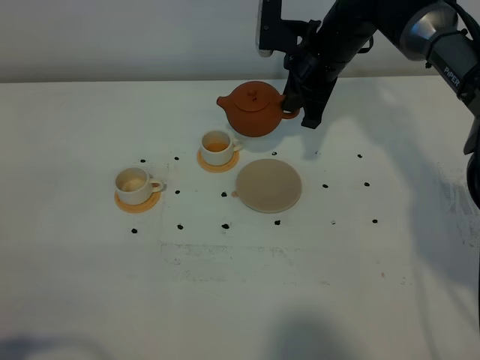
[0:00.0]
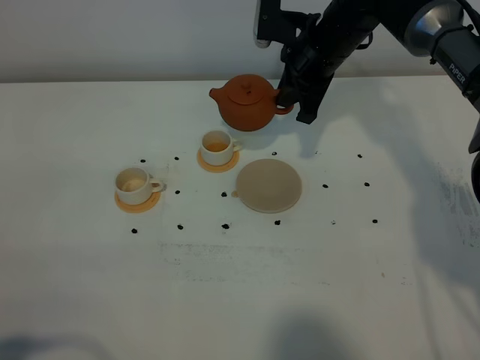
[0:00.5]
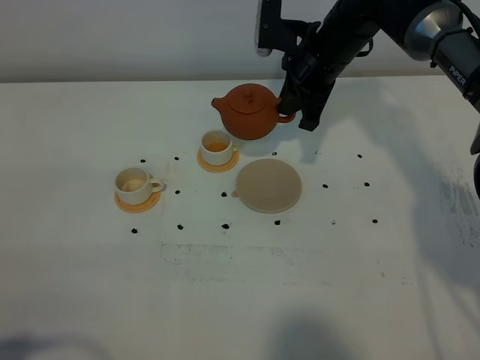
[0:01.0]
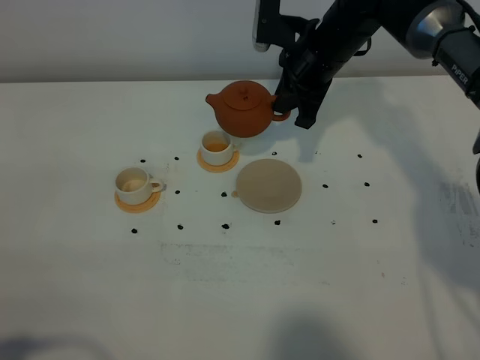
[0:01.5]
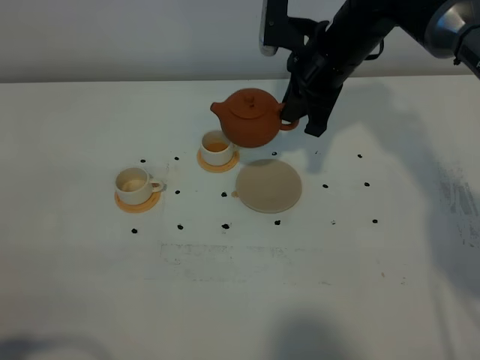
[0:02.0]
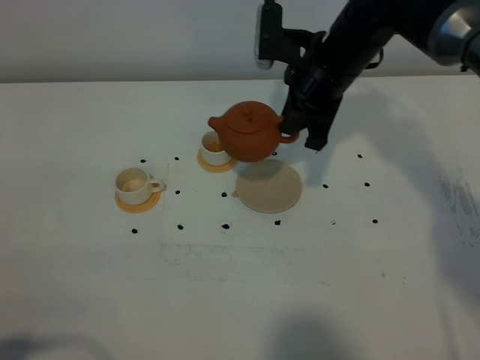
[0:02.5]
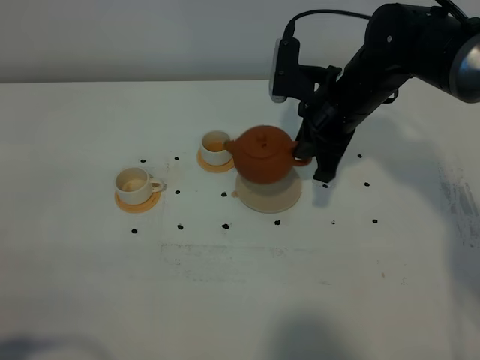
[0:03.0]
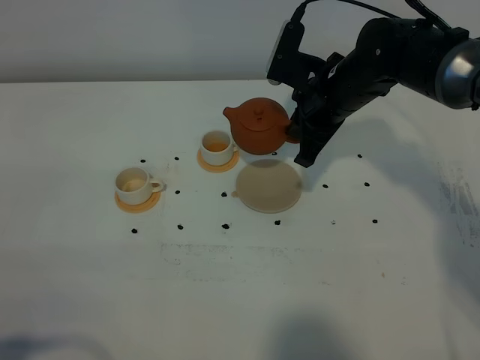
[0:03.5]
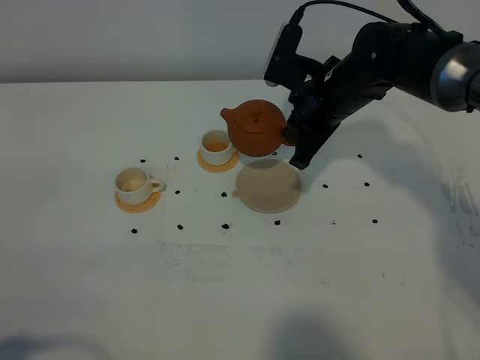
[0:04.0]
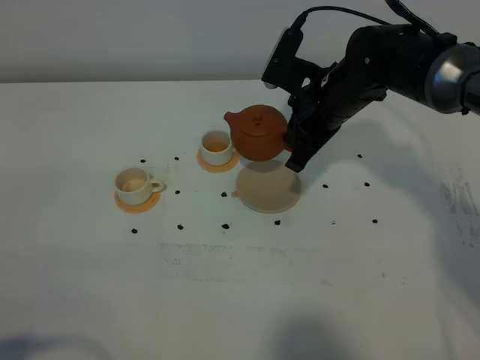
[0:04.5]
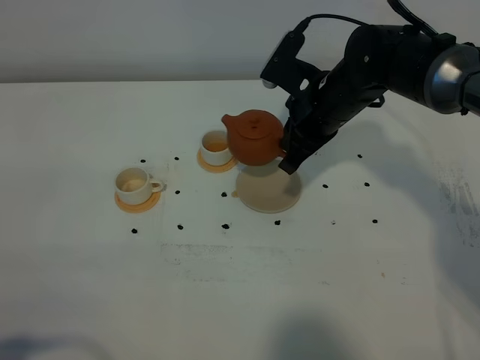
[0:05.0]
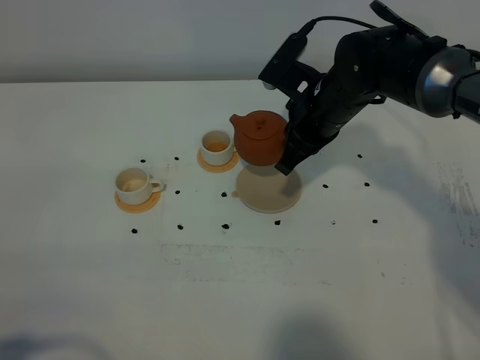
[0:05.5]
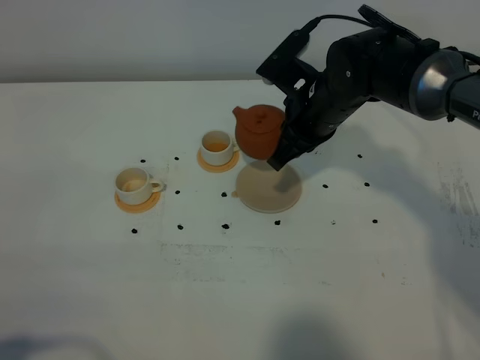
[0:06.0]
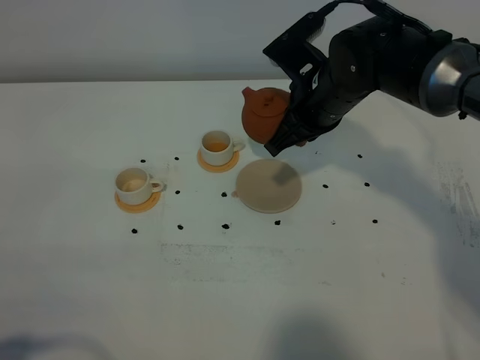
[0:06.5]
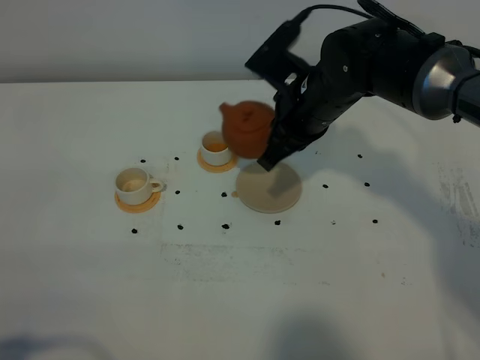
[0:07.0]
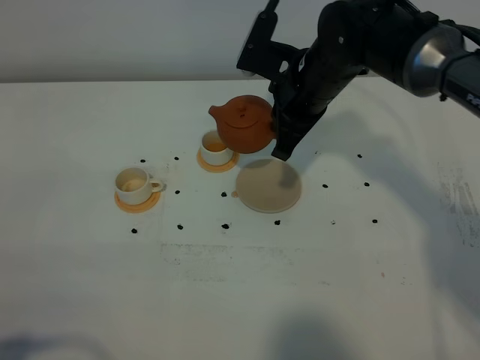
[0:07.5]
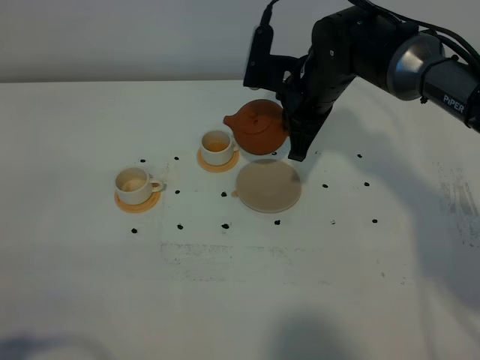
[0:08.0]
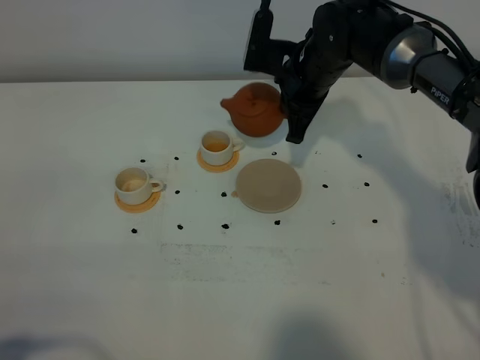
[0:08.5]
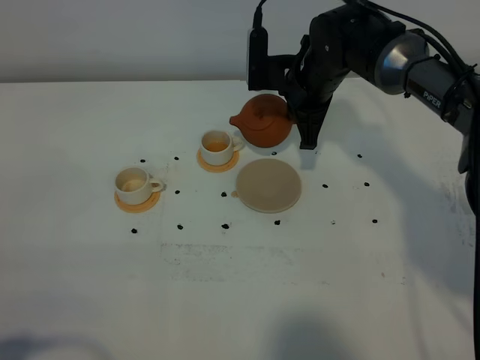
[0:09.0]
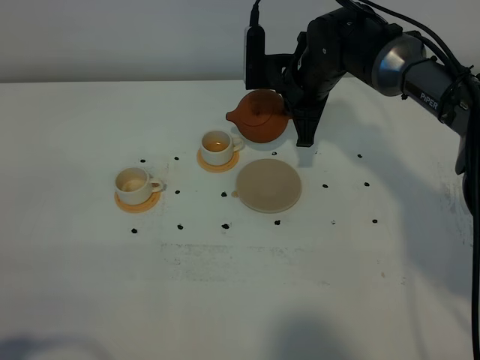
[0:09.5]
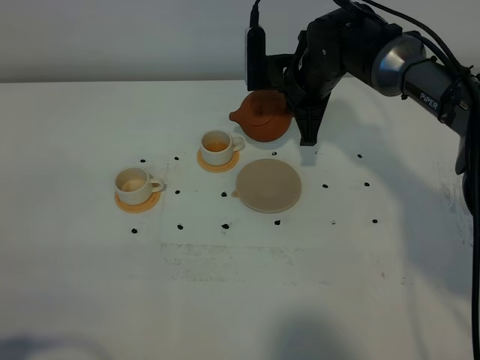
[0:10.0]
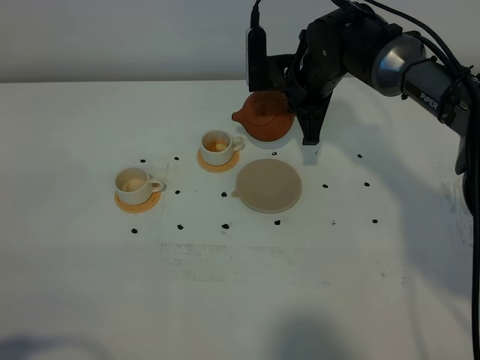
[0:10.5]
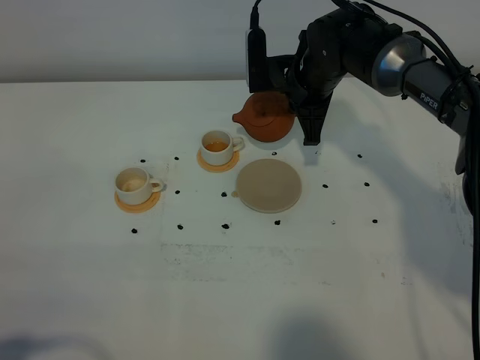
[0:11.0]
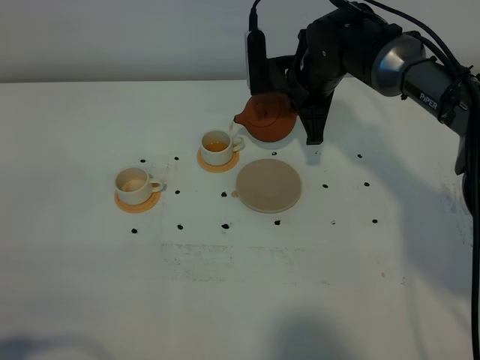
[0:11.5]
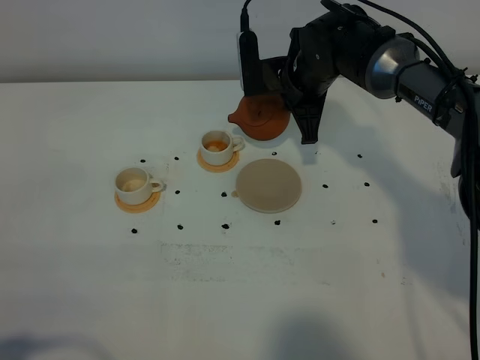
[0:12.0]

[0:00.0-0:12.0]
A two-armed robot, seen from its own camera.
Task of the whole recording: grasp the brown teapot and pour the tea into the two white teacups one by one, put the brown teapot back in its original place.
0:00.0 to 0:02.0: The grippers make only small movements.
0:02.0 to 0:04.0: The grippers make only small movements.
0:08.0 to 0:10.0: There are only small adjustments of the grippers.
0:10.0 to 0:12.0: The grippers move only a little.

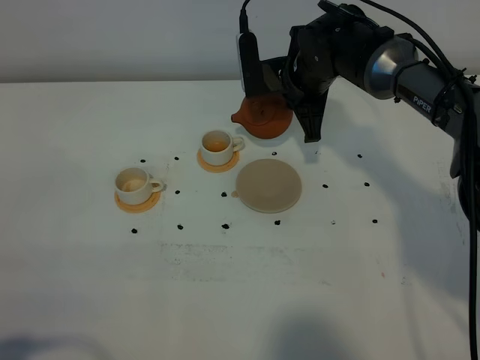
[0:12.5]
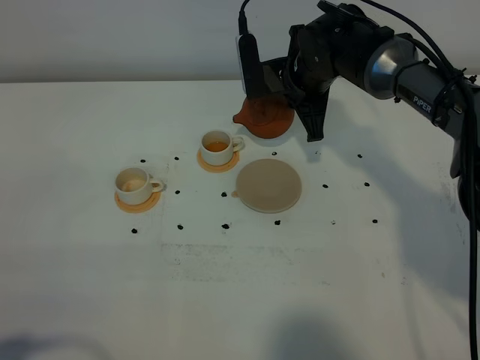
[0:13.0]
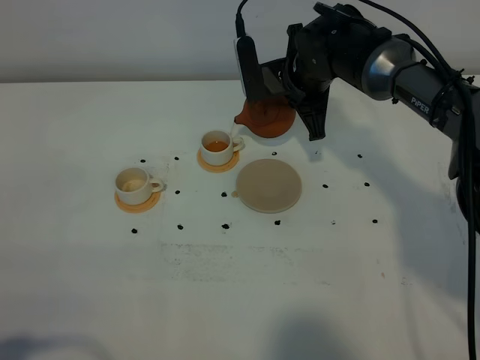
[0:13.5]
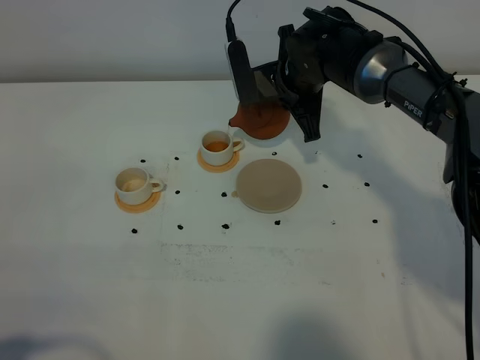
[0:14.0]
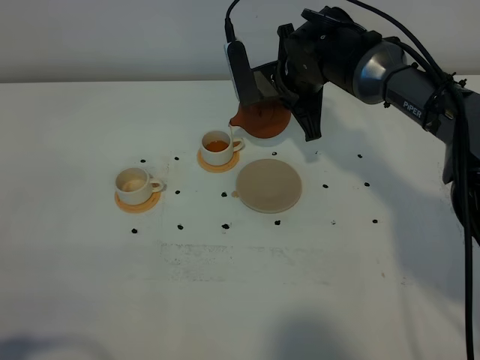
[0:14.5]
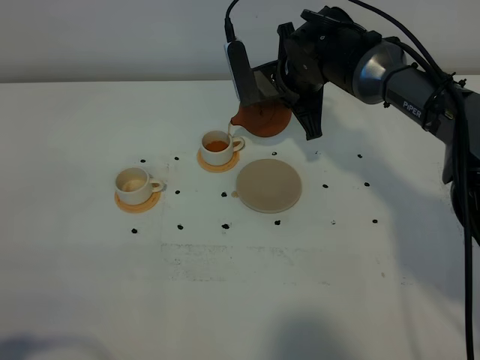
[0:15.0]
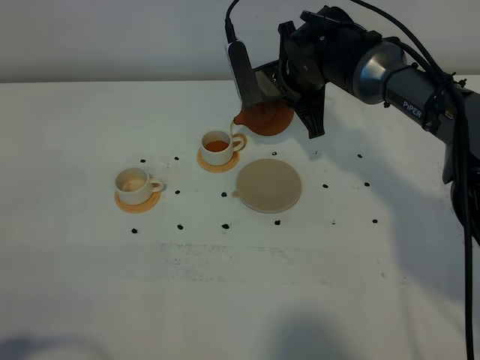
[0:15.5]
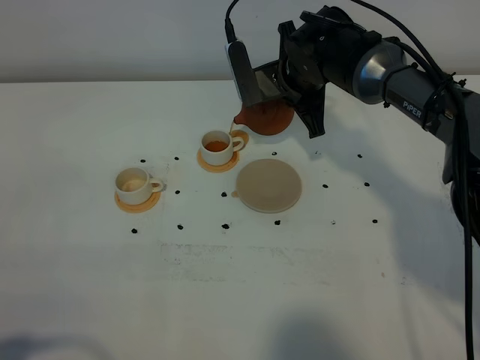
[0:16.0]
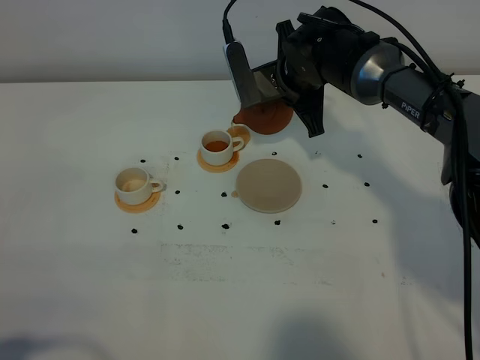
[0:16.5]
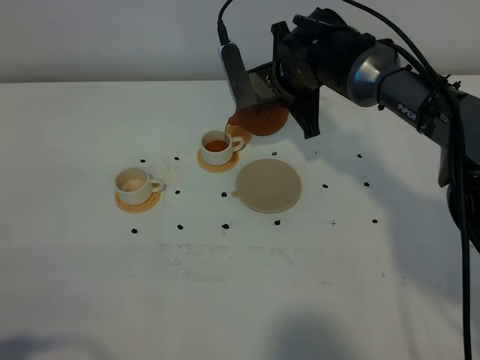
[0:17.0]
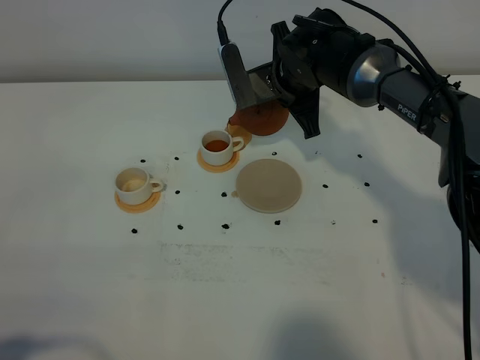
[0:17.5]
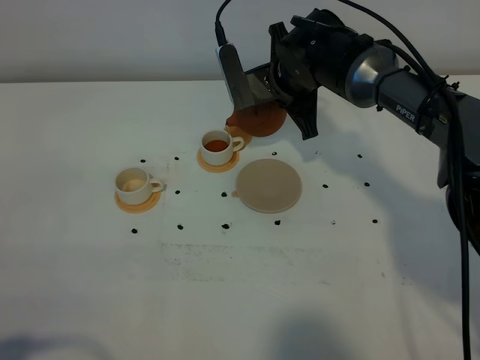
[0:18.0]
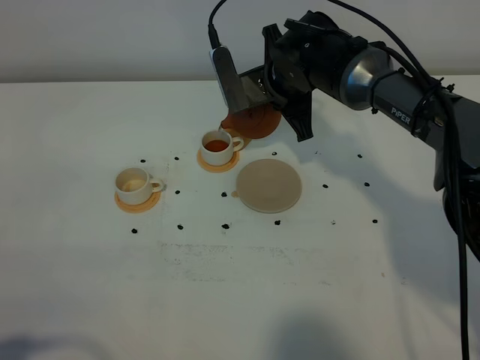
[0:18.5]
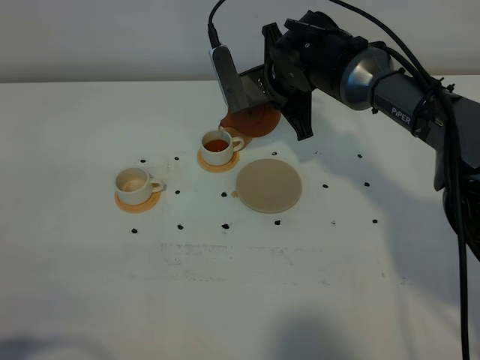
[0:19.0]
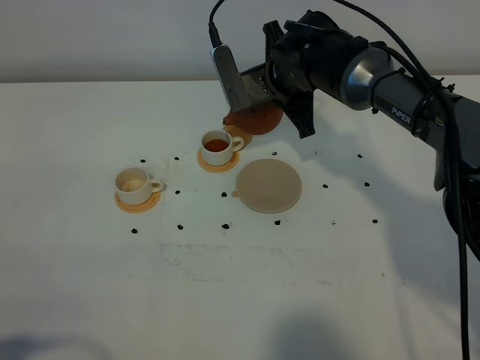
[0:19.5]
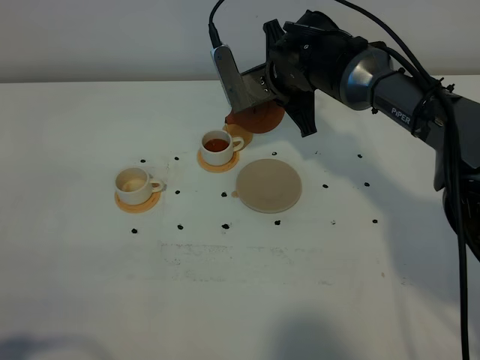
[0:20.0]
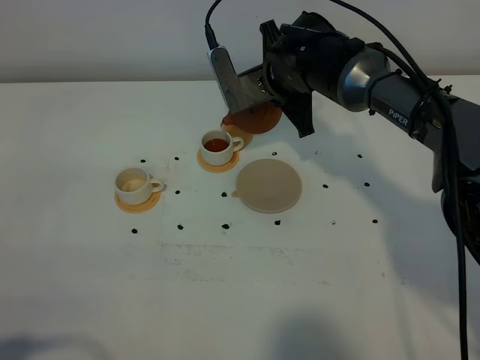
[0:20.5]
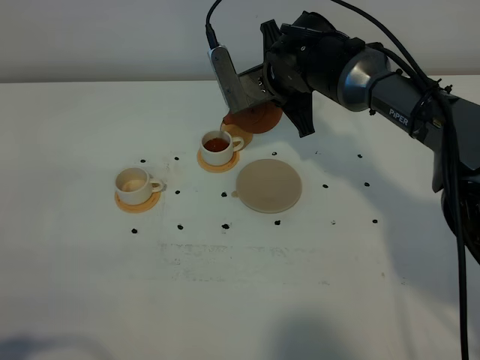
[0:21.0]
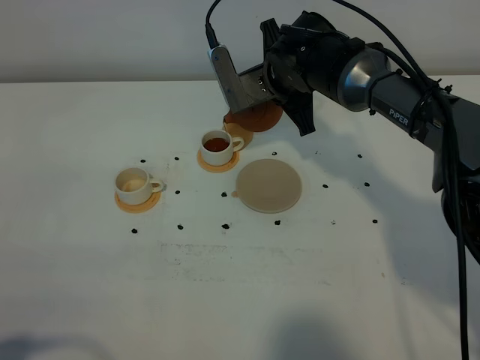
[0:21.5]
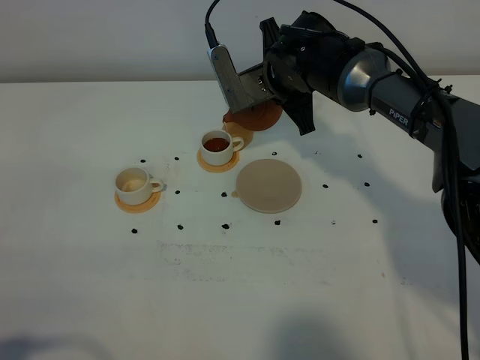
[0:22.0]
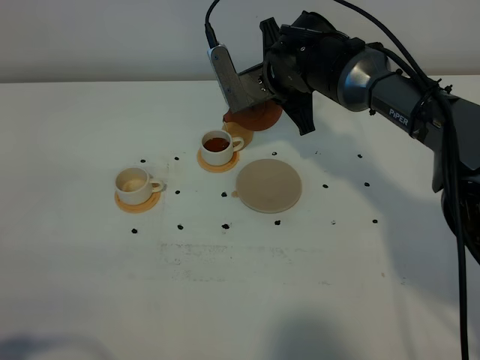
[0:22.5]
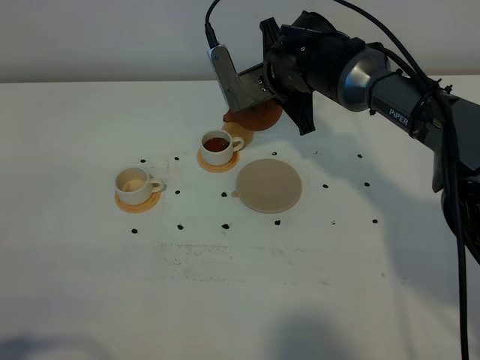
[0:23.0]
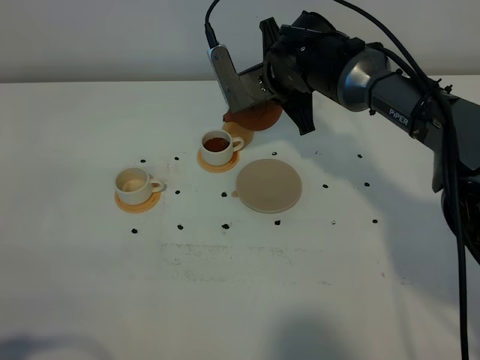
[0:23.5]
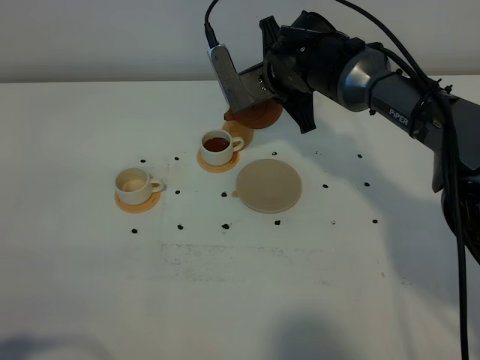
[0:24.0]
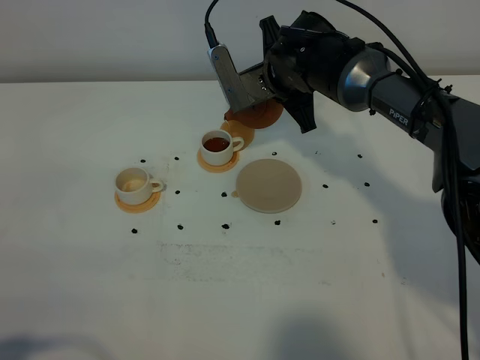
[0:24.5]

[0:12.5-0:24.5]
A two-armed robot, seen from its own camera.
Task of the whole recording: grasp the brown teapot and pour the tea into the two white teacups one by one, put the brown teapot back in its original place.
0:12.5 to 0:14.5: There are only small adjustments of the grippers.
0:14.5 to 0:16.5: Both grippers stay put.
0:16.5 to 0:18.5: There are only small adjustments of the grippers.
0:18.5 to 0:22.5: Both grippers stay put.
0:22.5 to 0:24.5: The two grippers keep their place.

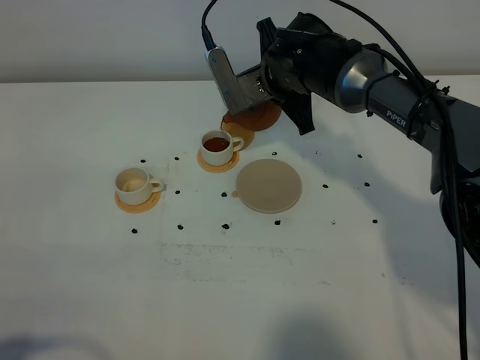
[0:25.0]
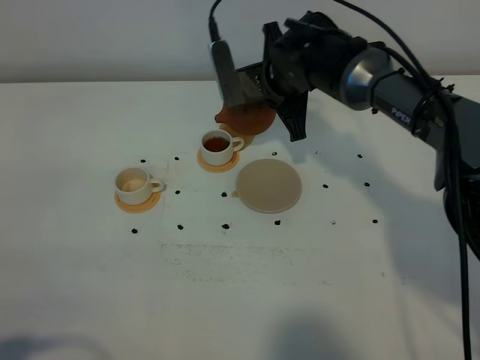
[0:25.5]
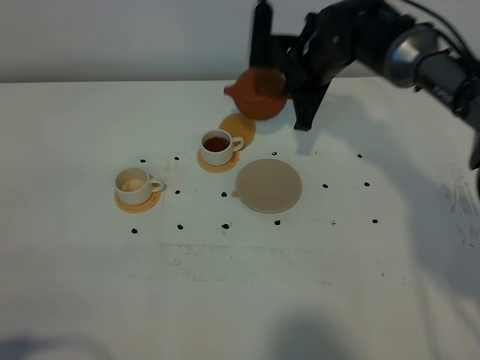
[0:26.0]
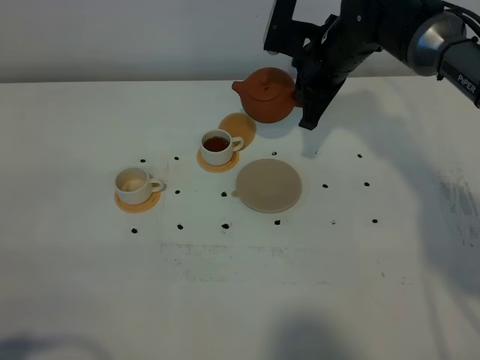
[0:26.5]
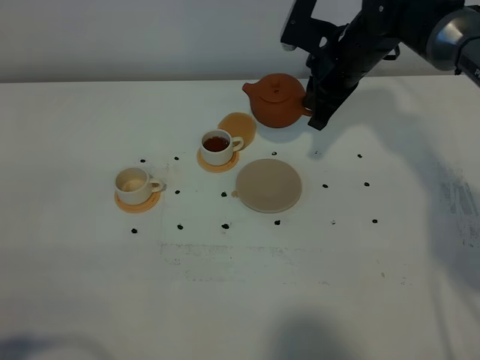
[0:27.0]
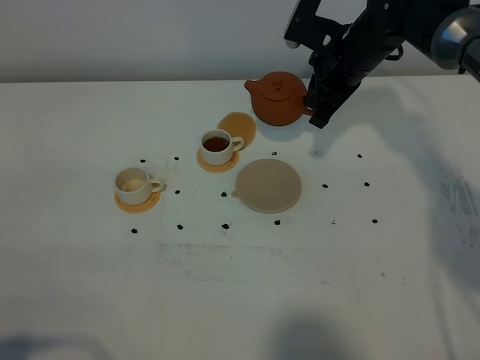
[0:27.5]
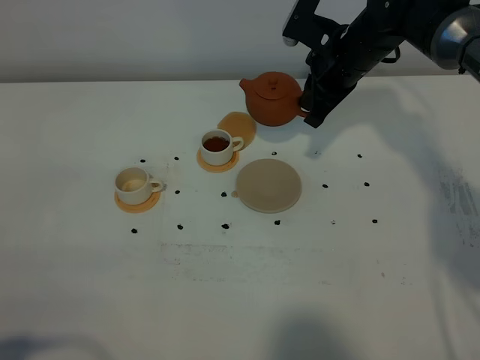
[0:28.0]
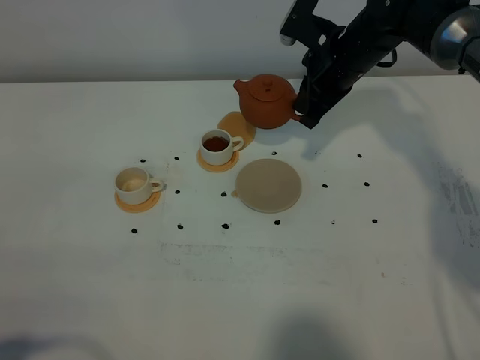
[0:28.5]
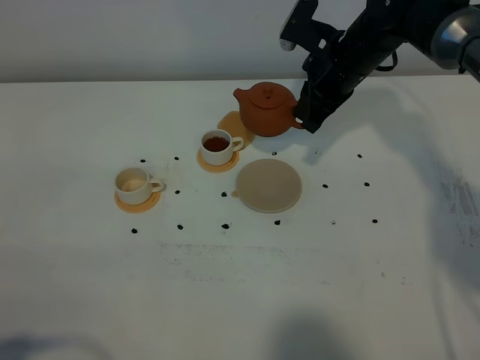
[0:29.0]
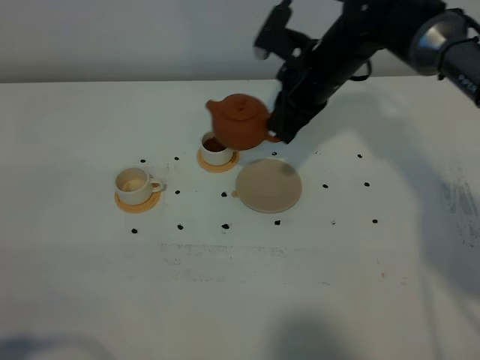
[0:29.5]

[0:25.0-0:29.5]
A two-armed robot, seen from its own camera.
Task of the whole recording: grasp the brown teapot and pour the tea into the two white teacups one by one, put the brown teapot back in its original place.
0:25.0 to 0:27.0: The right gripper travels to the right by some 10 cm.
0:27.0 to 0:29.5: The right gripper moves roughly 5 cm.
